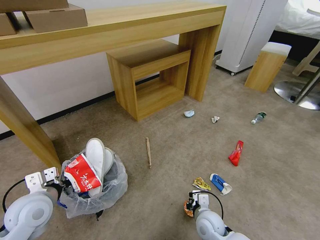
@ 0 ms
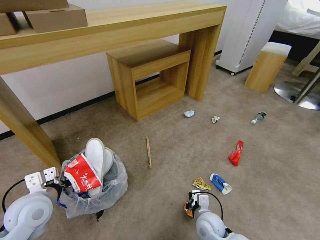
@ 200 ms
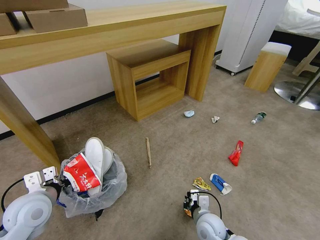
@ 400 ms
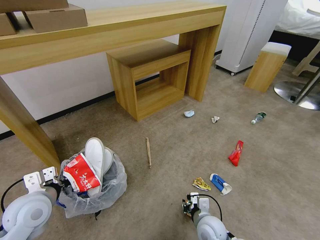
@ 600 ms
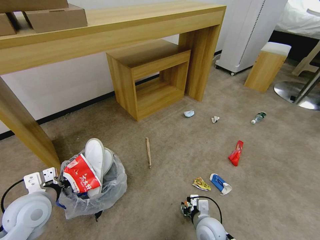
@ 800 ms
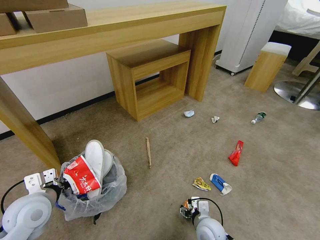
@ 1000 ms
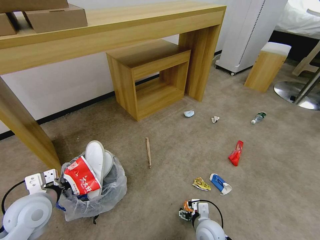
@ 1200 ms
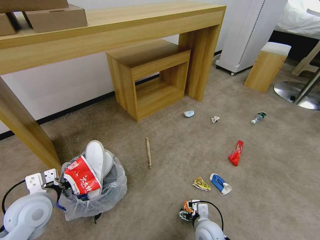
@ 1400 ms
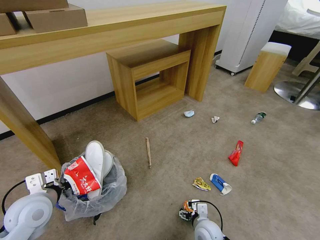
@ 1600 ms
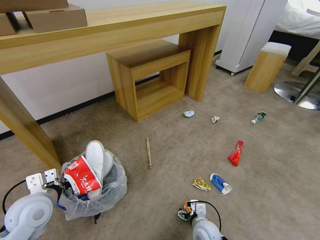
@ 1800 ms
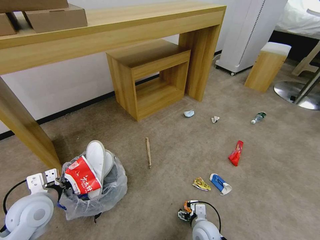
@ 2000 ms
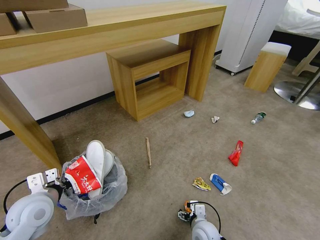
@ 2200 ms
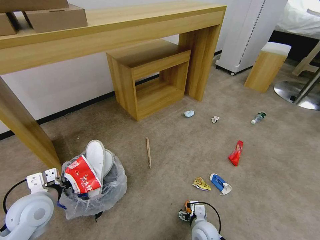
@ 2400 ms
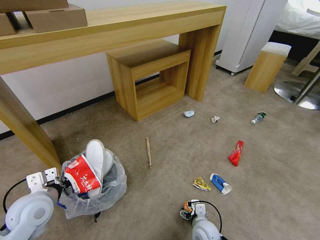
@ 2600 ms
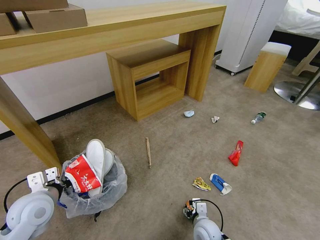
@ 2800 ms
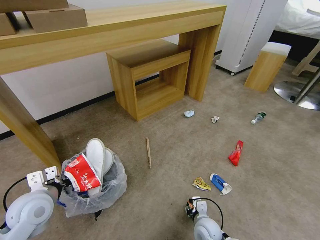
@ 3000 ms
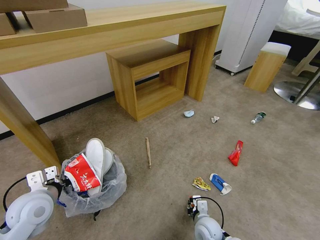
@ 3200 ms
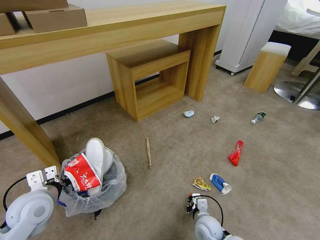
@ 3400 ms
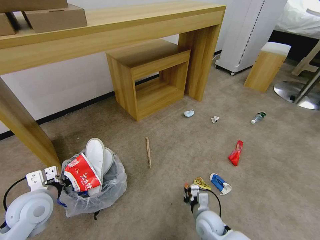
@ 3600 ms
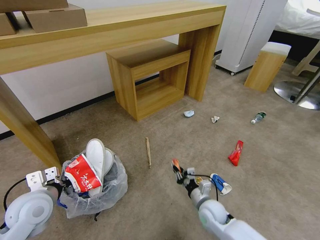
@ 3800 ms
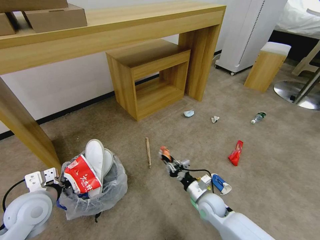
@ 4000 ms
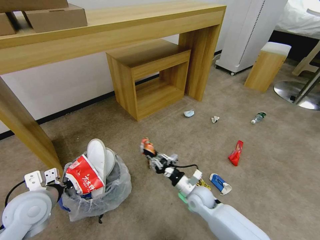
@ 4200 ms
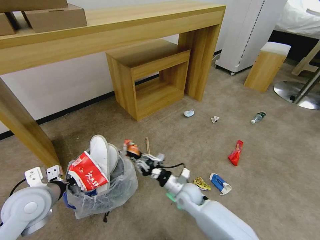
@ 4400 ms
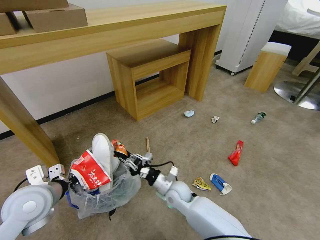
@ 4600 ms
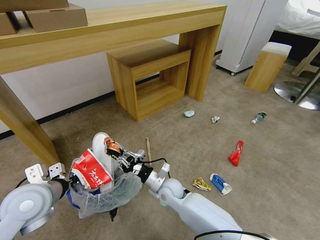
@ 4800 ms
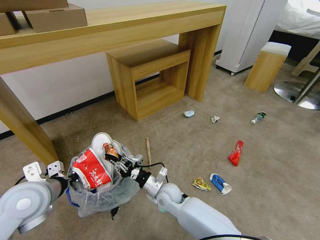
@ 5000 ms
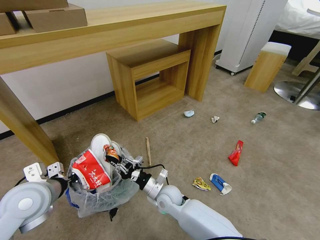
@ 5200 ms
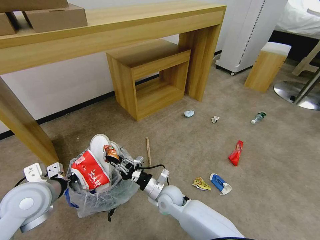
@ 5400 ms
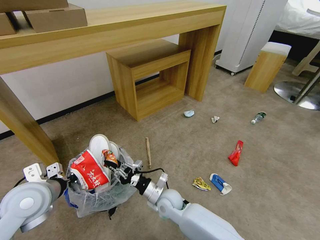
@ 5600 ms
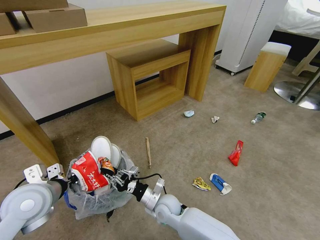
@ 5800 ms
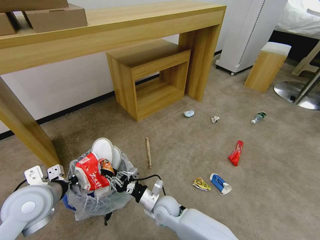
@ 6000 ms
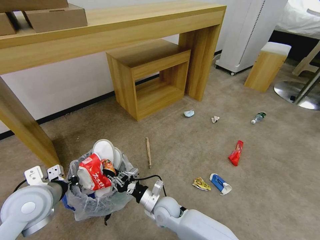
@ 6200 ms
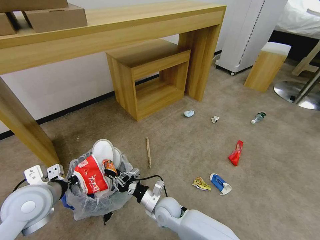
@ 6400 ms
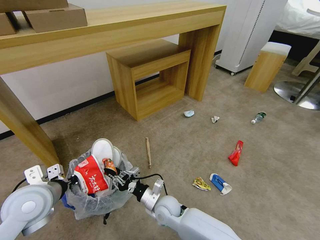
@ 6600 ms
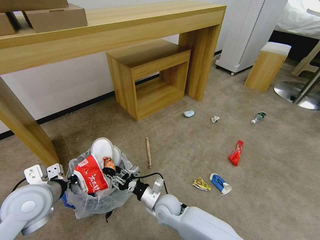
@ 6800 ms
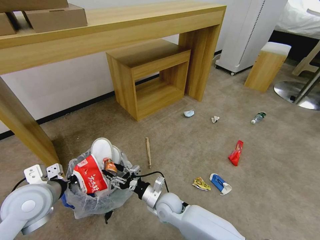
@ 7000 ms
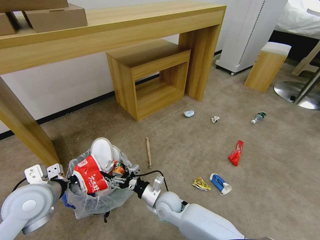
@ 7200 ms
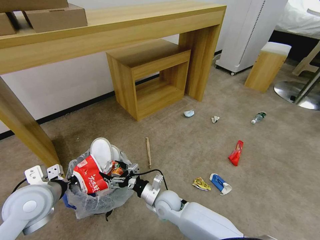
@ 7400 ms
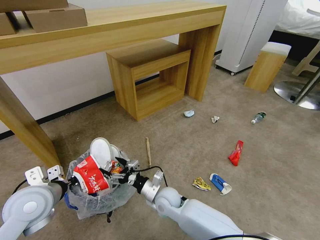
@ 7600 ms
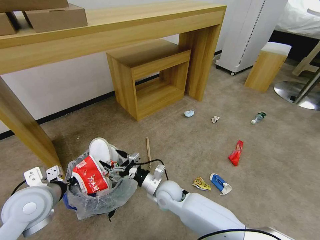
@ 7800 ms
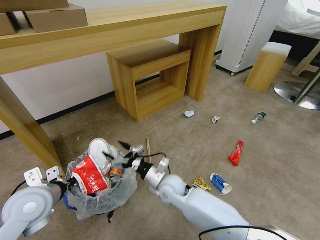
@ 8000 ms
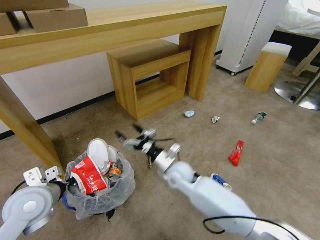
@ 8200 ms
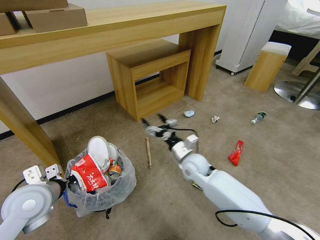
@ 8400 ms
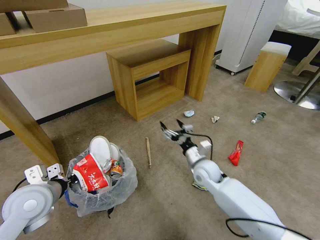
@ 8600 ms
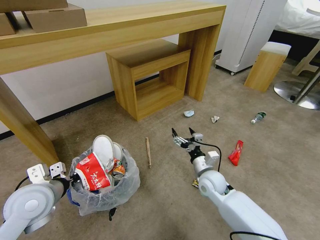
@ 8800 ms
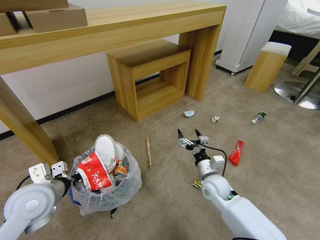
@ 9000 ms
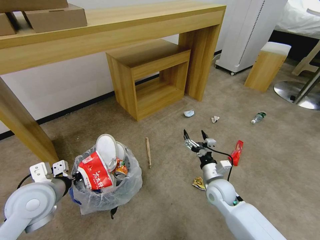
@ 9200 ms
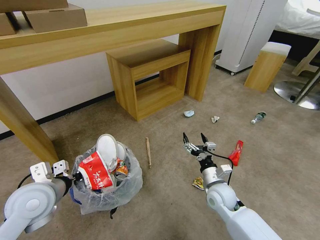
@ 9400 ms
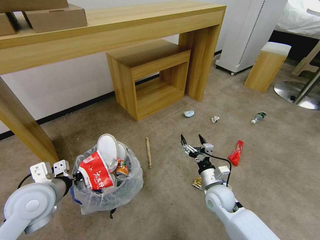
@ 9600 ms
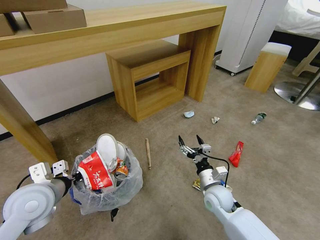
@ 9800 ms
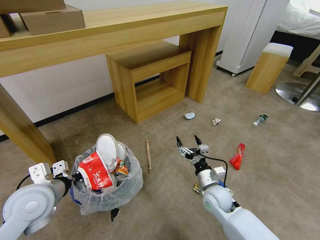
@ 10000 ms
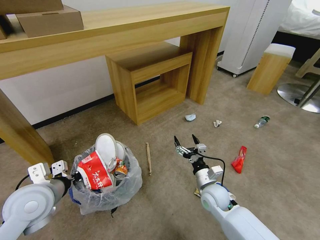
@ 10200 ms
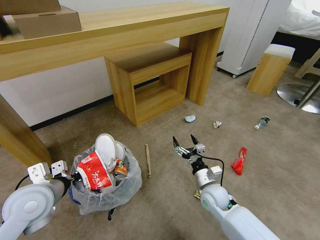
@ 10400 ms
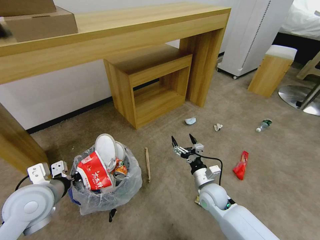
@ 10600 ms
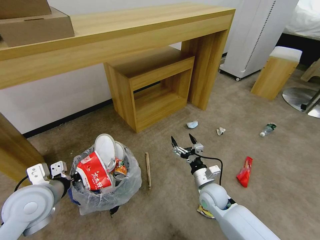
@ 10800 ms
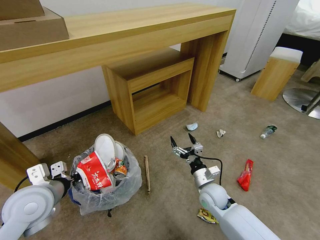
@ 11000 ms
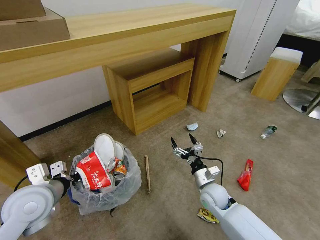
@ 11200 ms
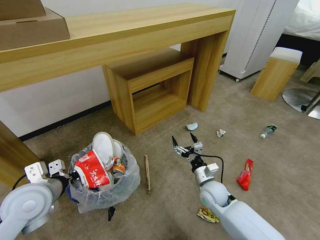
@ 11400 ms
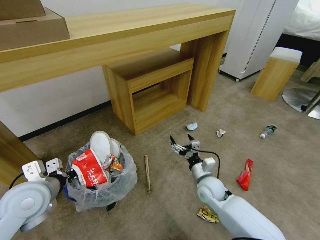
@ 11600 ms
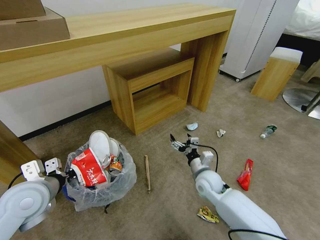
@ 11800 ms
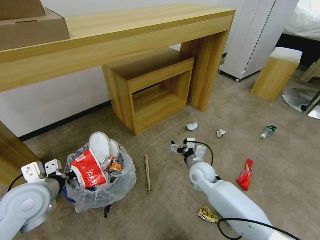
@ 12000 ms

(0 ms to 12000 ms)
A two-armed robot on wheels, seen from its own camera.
Task of the whole recording: Pick up the trash bin and place the garbage on the floor into it.
0 ms - 1600 ms: The right gripper opens up.
1600 ms - 3000 ms: The right gripper closes up.
3000 ms - 4400 ms: The right gripper goes roughly 15 cm forward, upward and to the left.
4400 ms - 6000 ms: The right gripper is displaced to the left by approximately 10 cm.
6000 ms - 7600 ms: The right gripper opens up.
7600 ms - 9000 ms: The right gripper goes some 20 cm to the right.
9000 ms - 10400 ms: The grippers stay close to where they were, moving slightly.
10400 ms - 12000 ms: The right gripper goes approximately 10 cm forward.

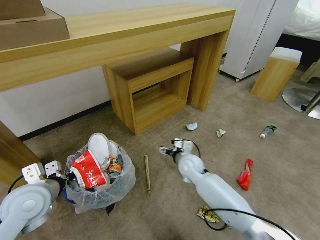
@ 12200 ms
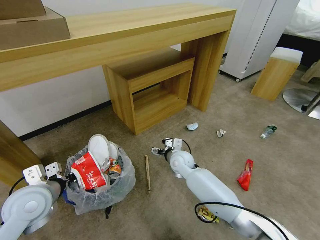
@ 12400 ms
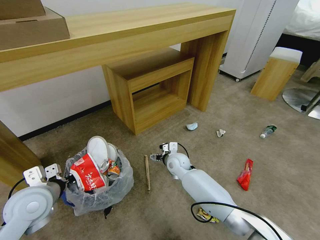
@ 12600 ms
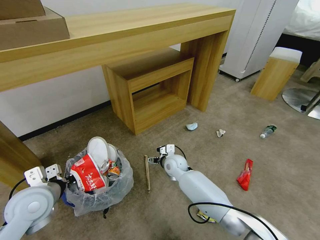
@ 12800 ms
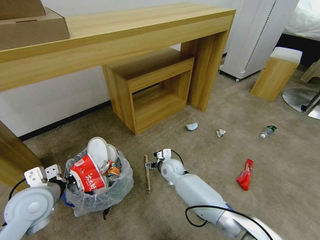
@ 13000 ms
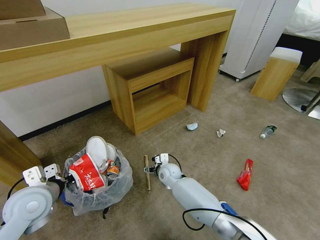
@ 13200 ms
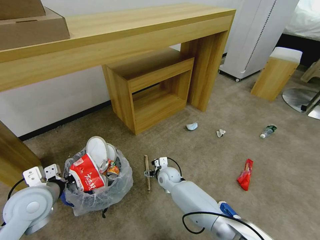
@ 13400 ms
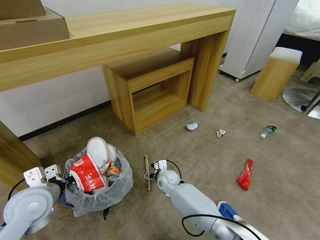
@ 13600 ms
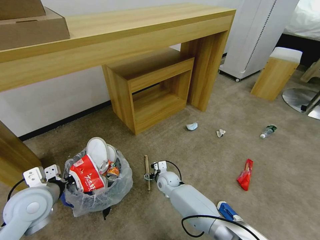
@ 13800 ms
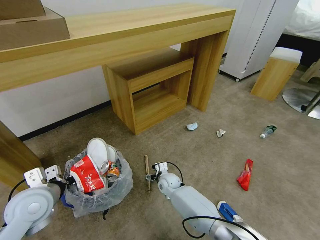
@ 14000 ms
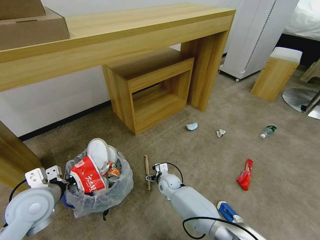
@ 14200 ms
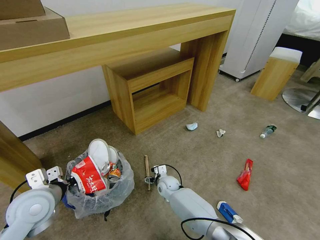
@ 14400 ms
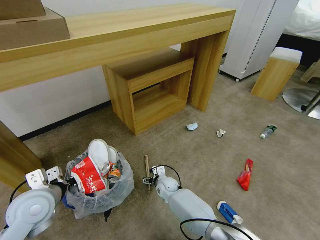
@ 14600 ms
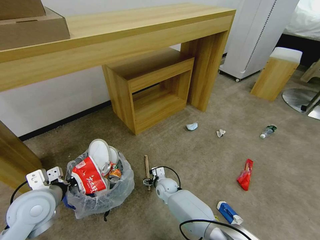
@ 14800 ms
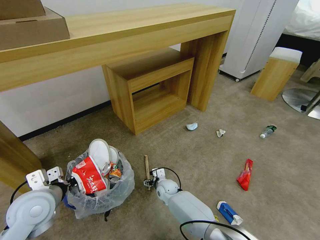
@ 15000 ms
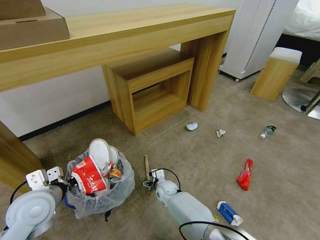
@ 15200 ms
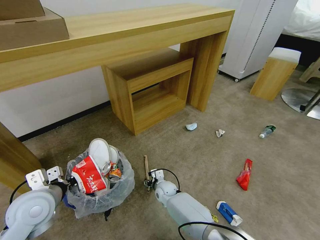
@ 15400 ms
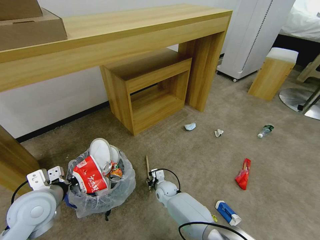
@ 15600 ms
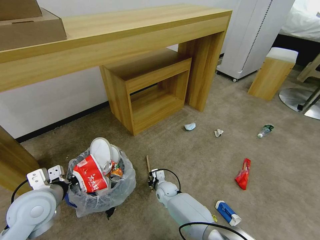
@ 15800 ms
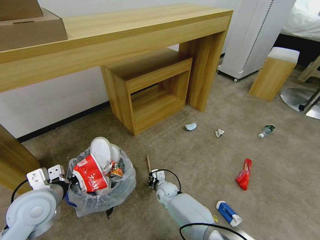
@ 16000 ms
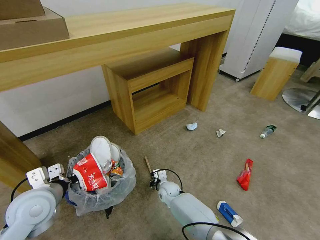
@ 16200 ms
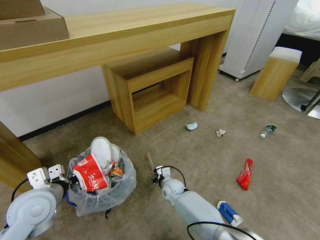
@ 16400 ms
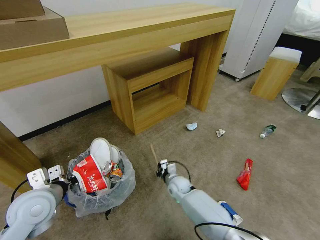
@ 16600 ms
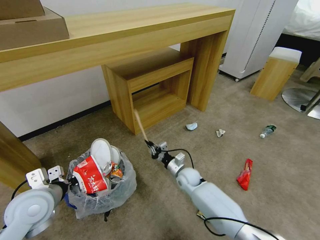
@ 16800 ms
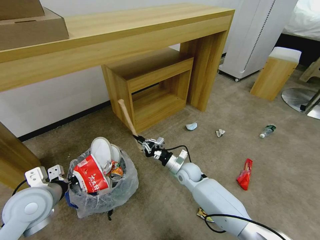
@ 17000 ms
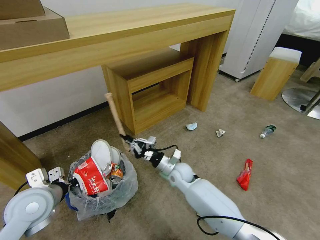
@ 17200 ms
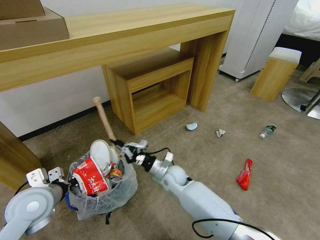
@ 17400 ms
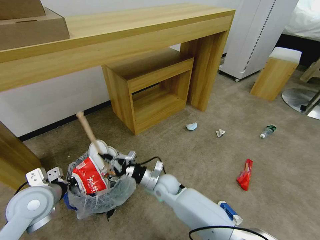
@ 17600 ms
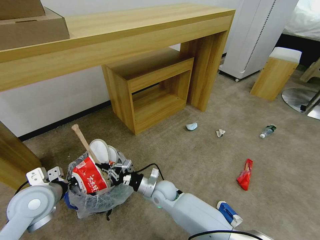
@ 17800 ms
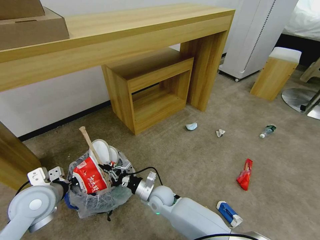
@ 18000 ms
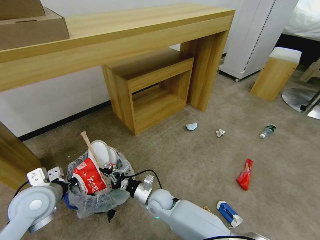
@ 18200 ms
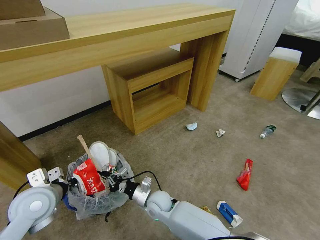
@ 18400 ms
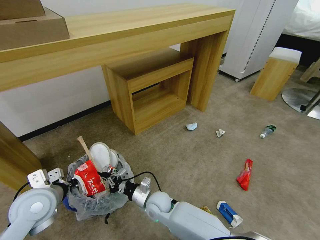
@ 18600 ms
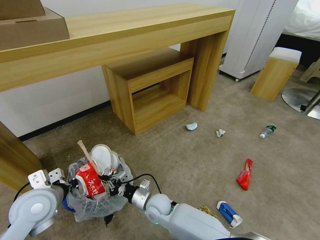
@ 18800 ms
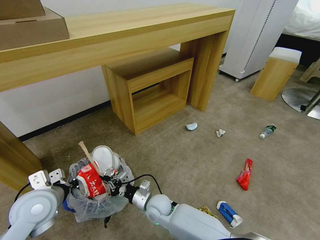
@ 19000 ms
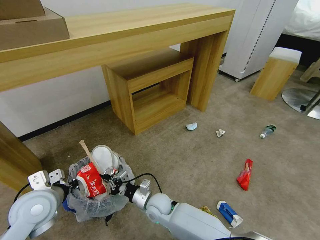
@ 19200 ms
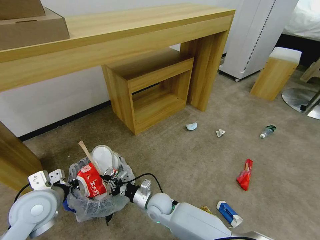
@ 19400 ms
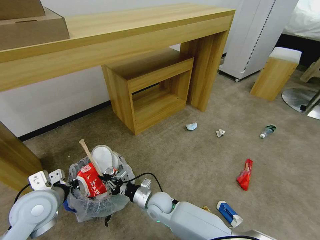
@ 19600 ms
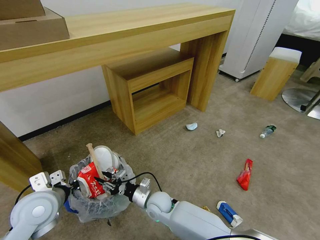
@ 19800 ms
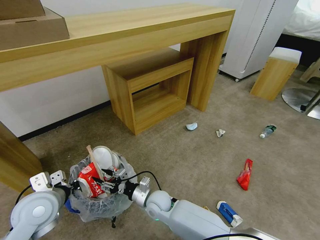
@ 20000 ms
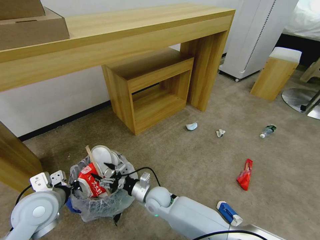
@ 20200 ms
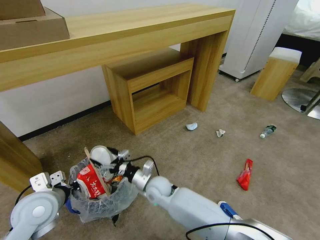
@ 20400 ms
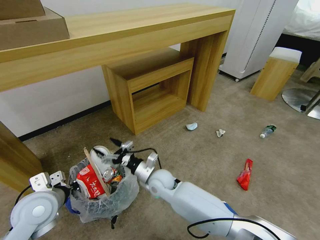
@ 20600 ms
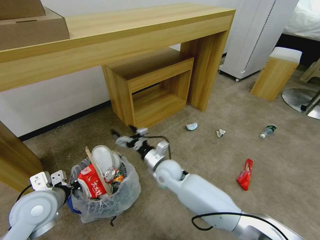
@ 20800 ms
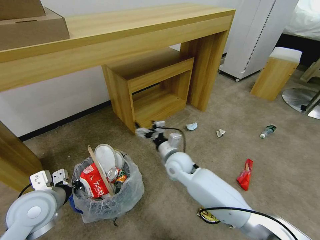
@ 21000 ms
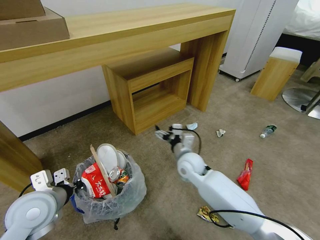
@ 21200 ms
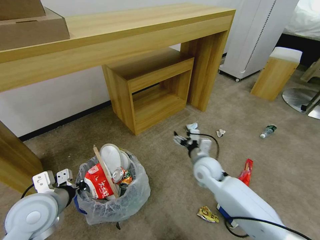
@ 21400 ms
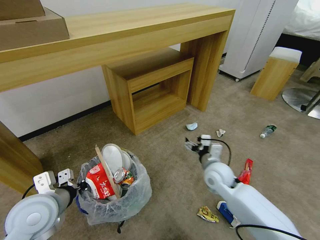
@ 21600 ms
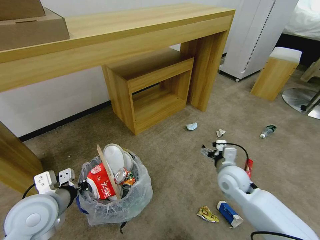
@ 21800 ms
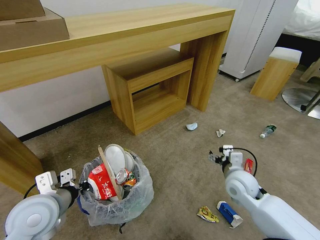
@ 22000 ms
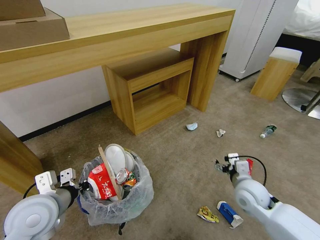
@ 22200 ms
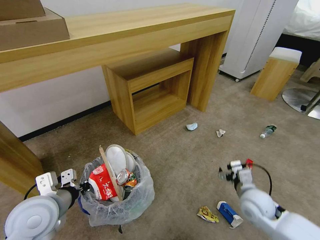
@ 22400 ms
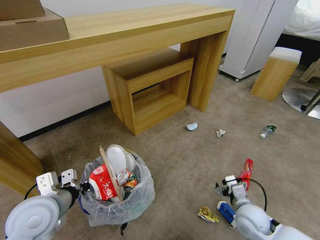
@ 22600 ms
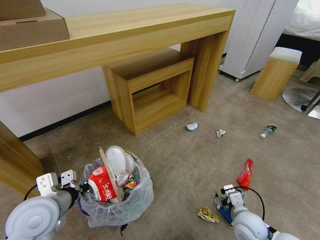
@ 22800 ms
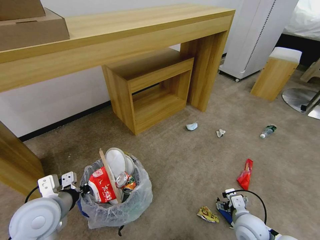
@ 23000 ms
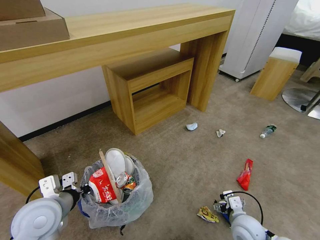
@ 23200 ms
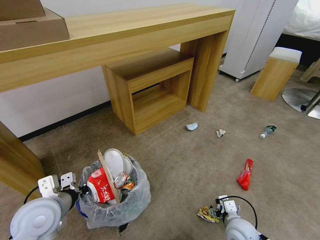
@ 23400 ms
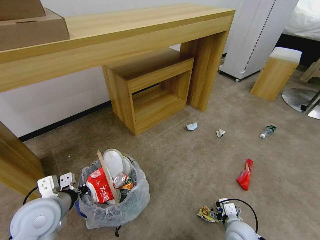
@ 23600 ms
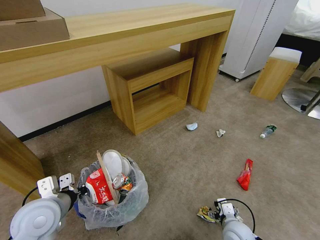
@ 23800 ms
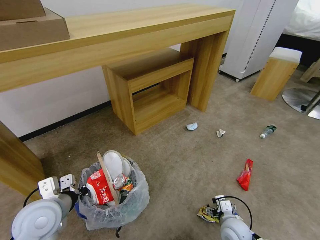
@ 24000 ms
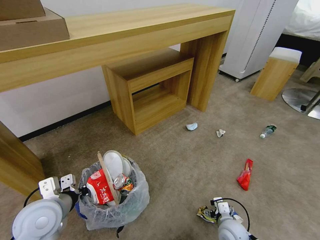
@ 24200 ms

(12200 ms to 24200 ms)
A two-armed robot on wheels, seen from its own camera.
Task of the whole recording: Pick up the trash bin and place the garbage on the floor into it.
12200 ms - 13800 ms: The right gripper is displaced downward and to the left by about 15 cm.
13800 ms - 15200 ms: The grippers make only small movements.
15200 ms - 16600 ms: The right gripper shifts roughly 5 cm to the right, and closes up.
16600 ms - 18200 ms: The right gripper goes about 15 cm to the left and backward.
18200 ms - 19800 ms: The right gripper opens.
19800 ms - 21200 ms: The right gripper shifts about 20 cm upward, to the right and forward, and opens.
21200 ms - 22600 ms: The right gripper goes about 25 cm to the right and backward.
22600 ms - 24200 ms: The right gripper travels downward by approximately 10 cm.
